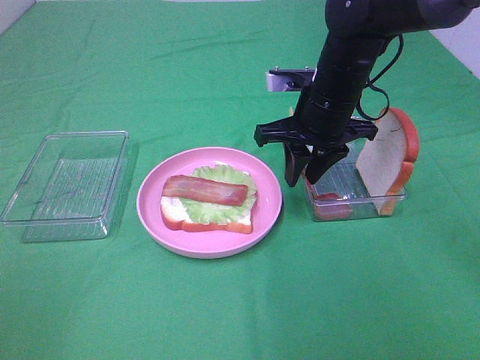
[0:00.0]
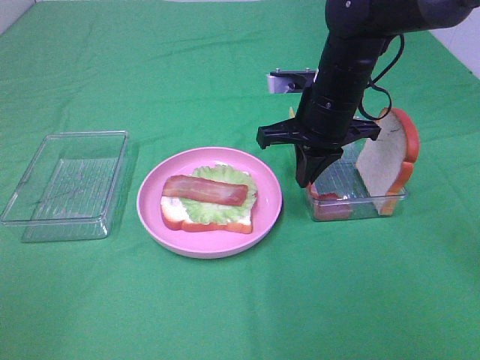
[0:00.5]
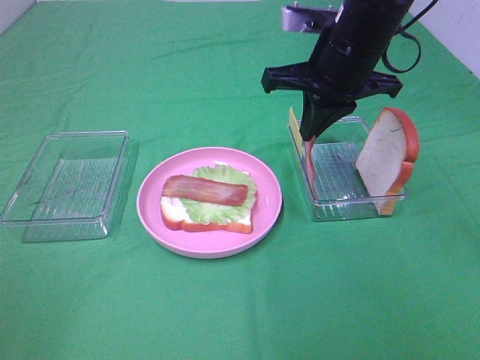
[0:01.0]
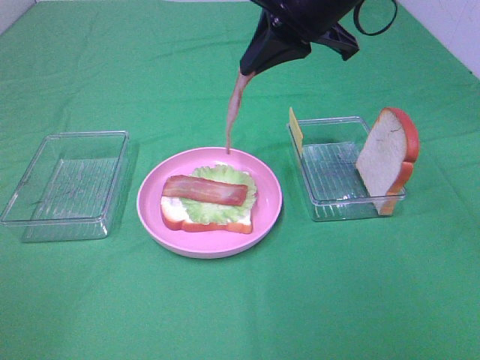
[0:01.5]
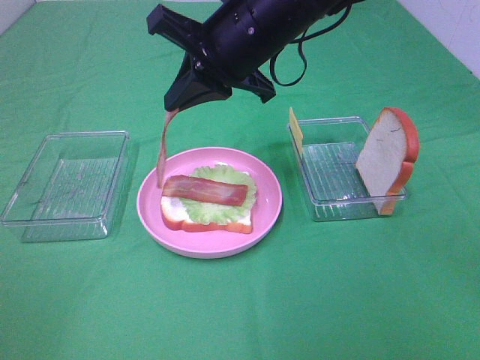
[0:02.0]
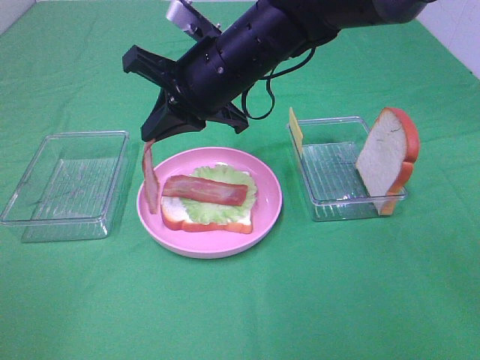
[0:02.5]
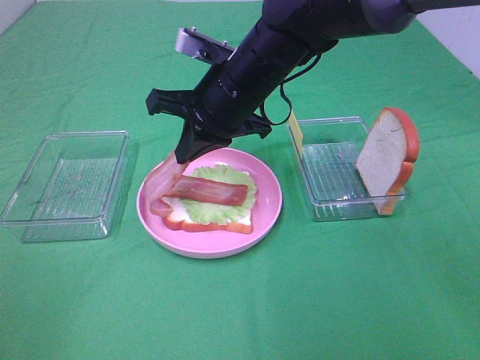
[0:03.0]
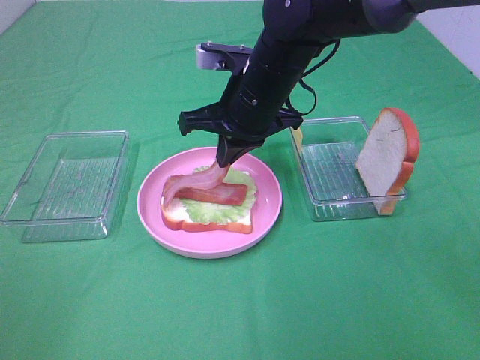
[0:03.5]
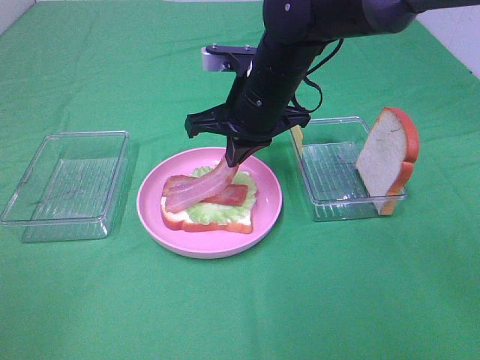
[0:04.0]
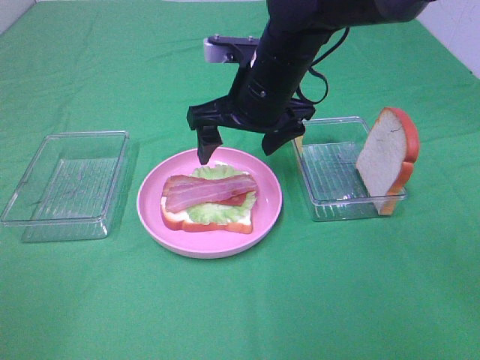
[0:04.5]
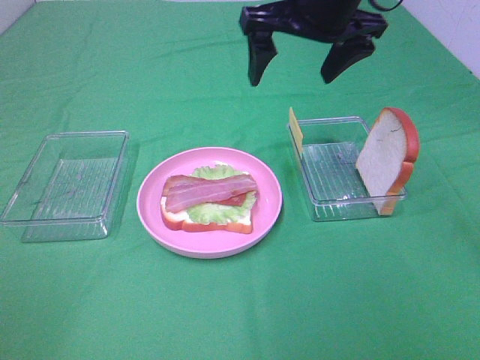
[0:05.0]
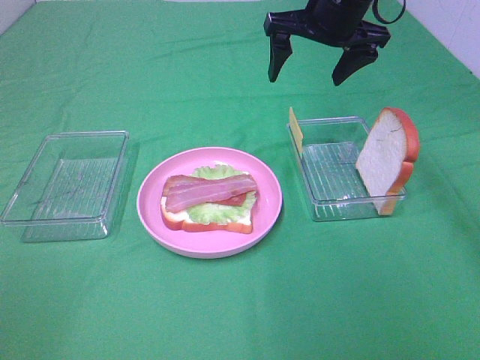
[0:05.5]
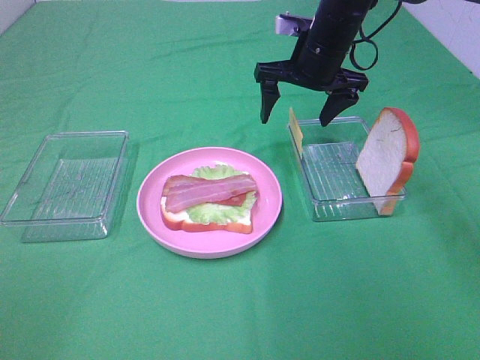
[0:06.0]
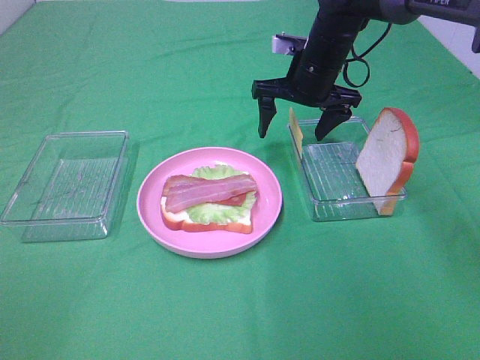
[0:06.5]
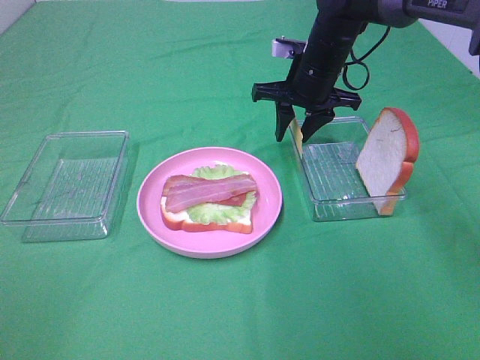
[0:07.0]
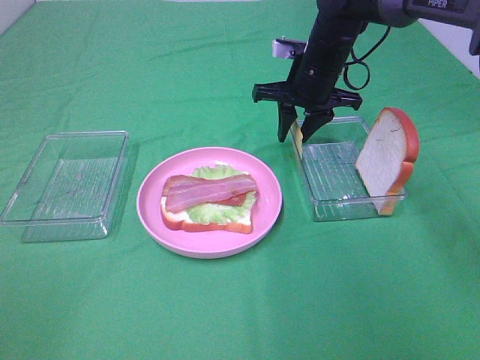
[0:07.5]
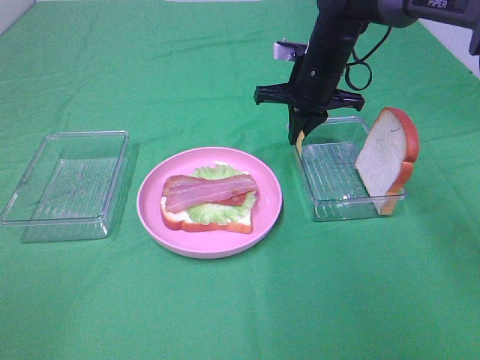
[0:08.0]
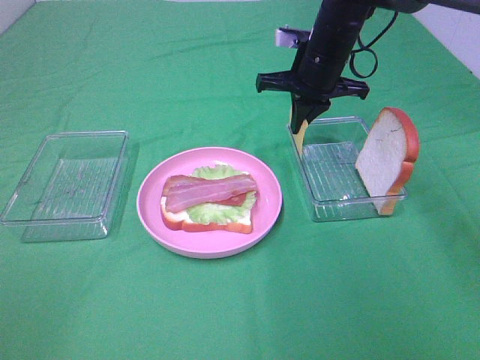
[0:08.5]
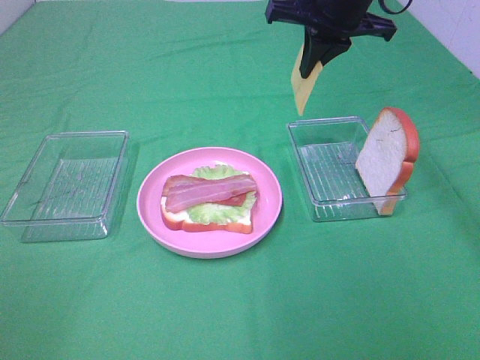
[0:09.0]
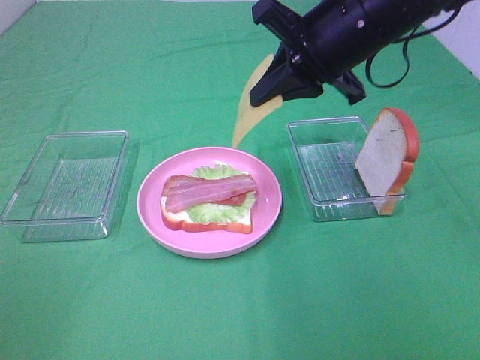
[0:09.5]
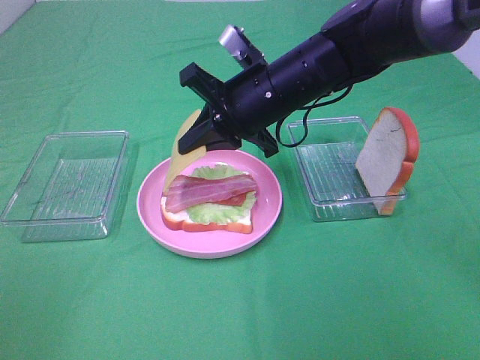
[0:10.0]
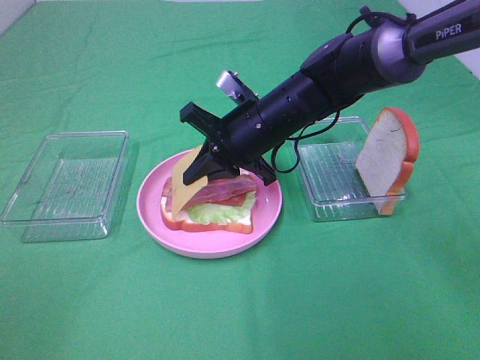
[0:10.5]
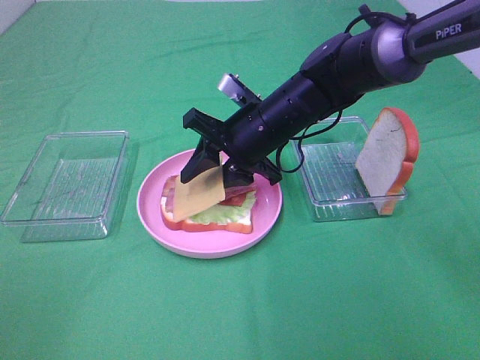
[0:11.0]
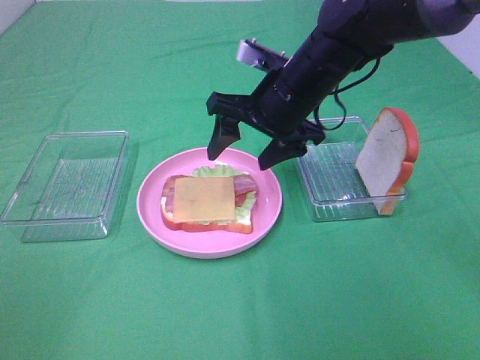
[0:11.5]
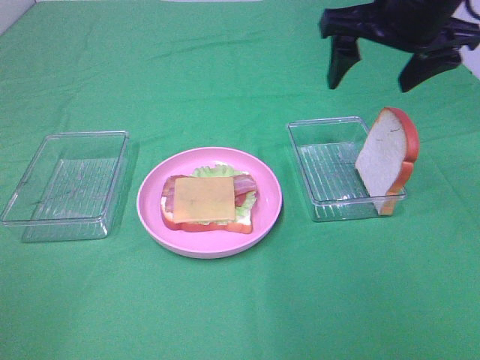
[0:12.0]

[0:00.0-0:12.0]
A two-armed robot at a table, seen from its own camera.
Task of the whole recording: Make sandwiches.
Step, 0:01.0 to 0:04.0: Right hand:place bacon on bacon.
Step, 0:04.5 to 0:08.0: Right hand:grab the cheese slice.
Step, 0:08.5 to 0:11.0: Right hand:place the cheese slice on top of the bacon.
0:00.0 to 0:02.0: The right gripper goes roughly 10 cm to the left and upward.
0:02.0 to 0:04.0: The right gripper travels downward by about 5 cm.
0:04.0 to 0:06.0: The right gripper travels forward and to the right by about 15 cm, moves roughly 10 cm upward and comes back, and opens up.
0:06.0 to 0:08.0: The right gripper closes.
0:08.0 to 0:10.0: The right gripper shifts about 15 cm backward and to the left.
0:10.0 to 0:12.0: The right gripper moves to the right and upward, approximately 20 cm, and opens up.

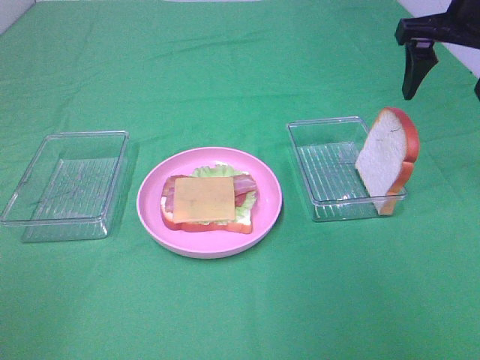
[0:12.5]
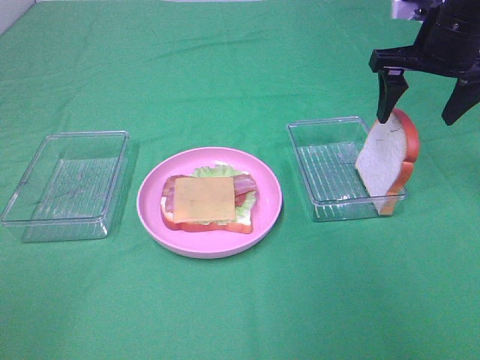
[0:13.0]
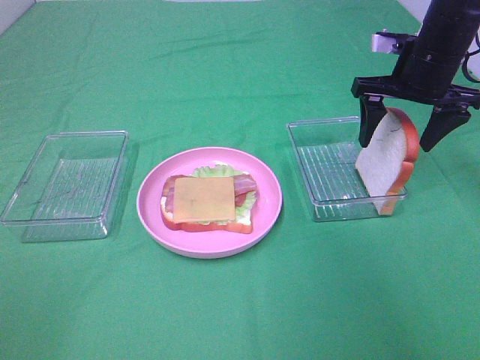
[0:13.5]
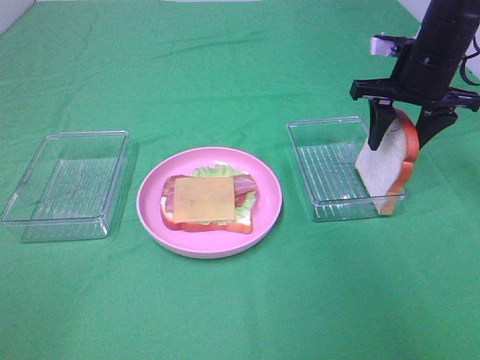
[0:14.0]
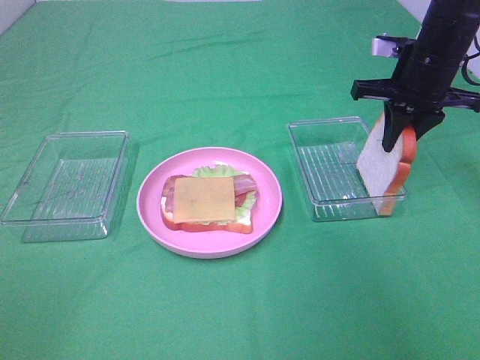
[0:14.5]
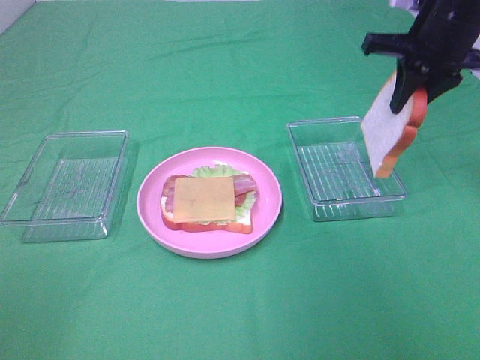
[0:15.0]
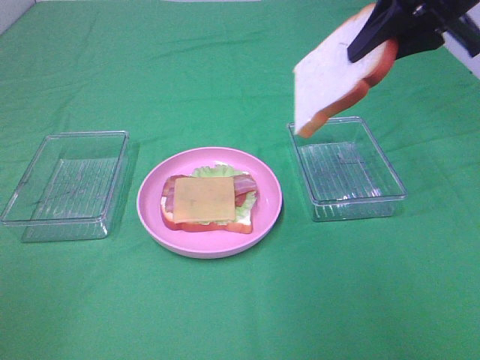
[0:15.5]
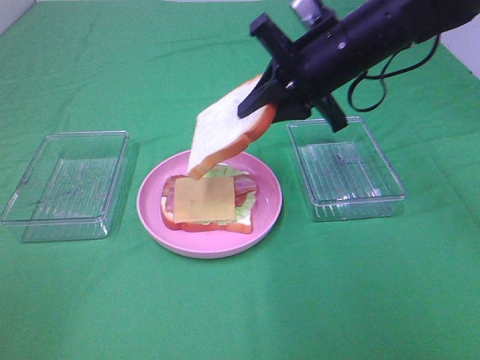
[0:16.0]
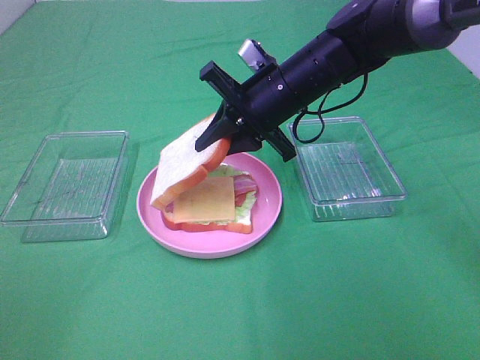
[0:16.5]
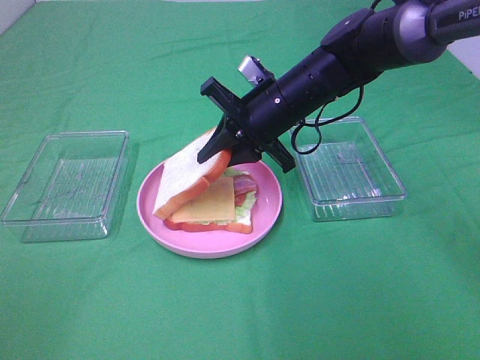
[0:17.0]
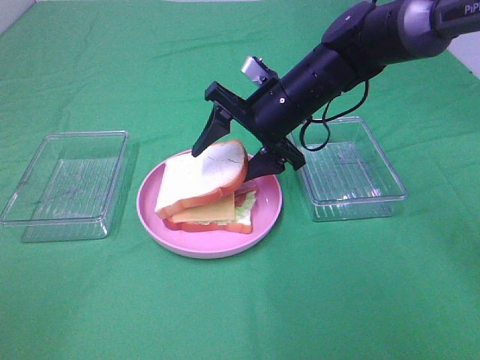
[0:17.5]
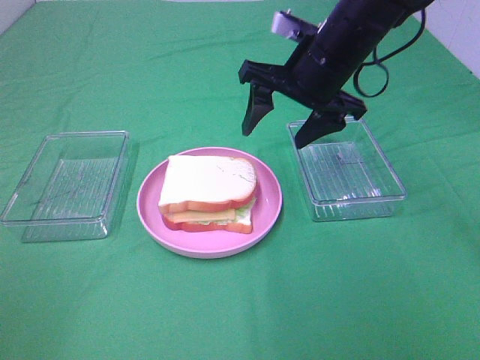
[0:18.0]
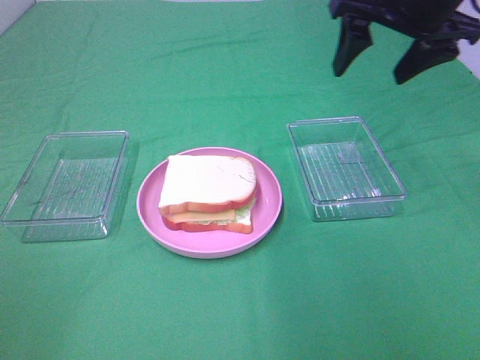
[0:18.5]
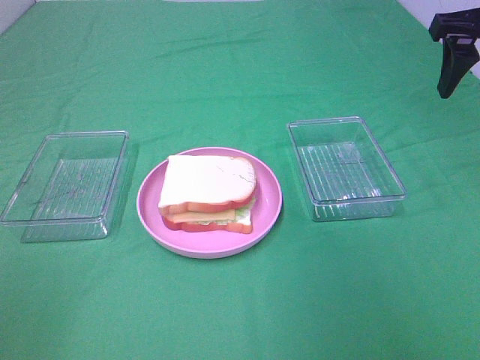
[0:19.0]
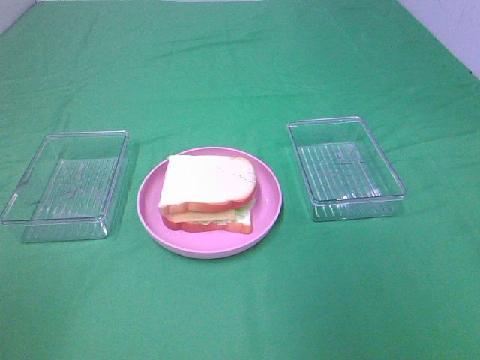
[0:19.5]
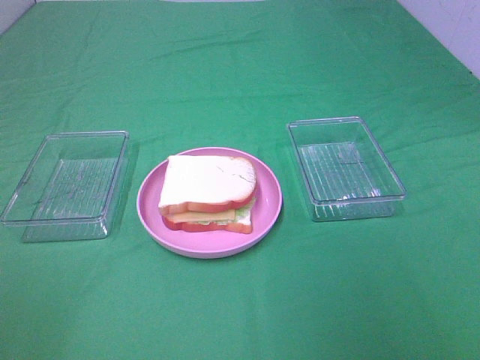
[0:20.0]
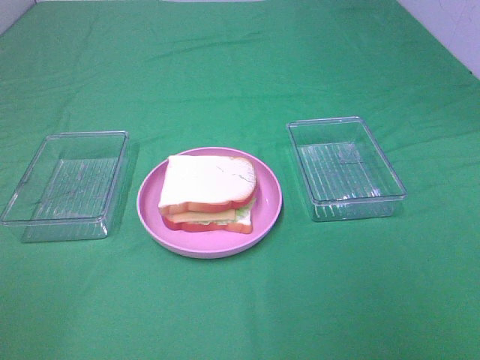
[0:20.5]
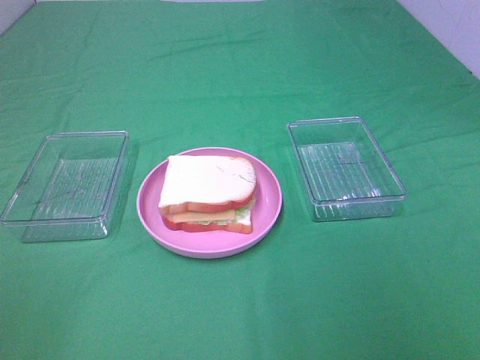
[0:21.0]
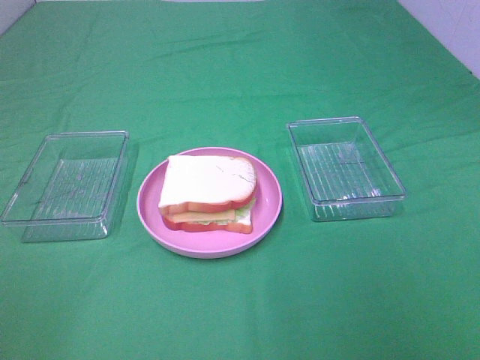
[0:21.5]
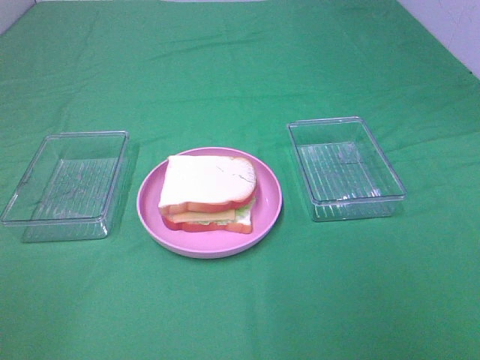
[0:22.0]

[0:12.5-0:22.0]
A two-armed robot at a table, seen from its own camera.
Task of the whole recording: Make sandwiches.
Step, 0:12.5 to 0:14.5: Right hand:grab the bread slice.
Step, 0:15.0 to 0:17.5: Right hand:place the bread slice on the cheese slice.
0:12.5 to 0:14.5: The right gripper moves downward, roughly 10 cm, and closes up.
0:14.5 to 0:16.5: The right gripper moves to the left, roughly 15 cm.
0:16.5 to 0:18.0: The right gripper goes about 5 cm upward, and opens up.
0:18.0 to 0:20.0: The right gripper heads backward and to the right, covering about 40 cm.

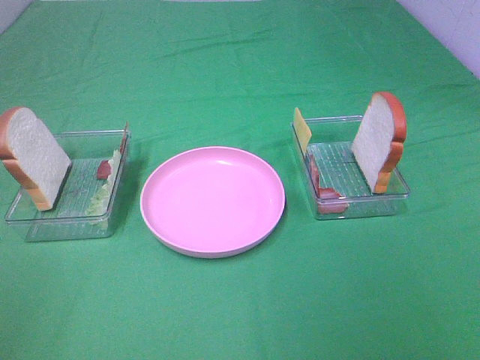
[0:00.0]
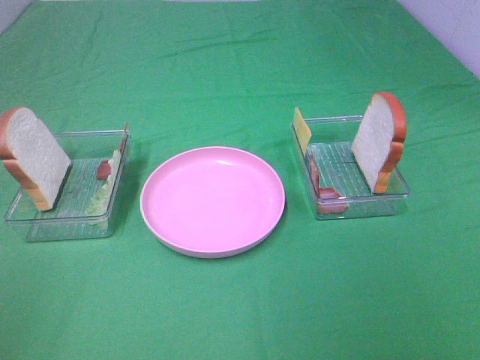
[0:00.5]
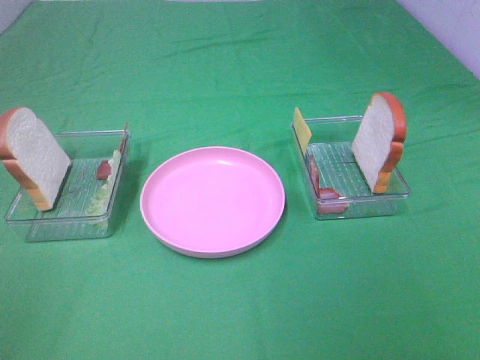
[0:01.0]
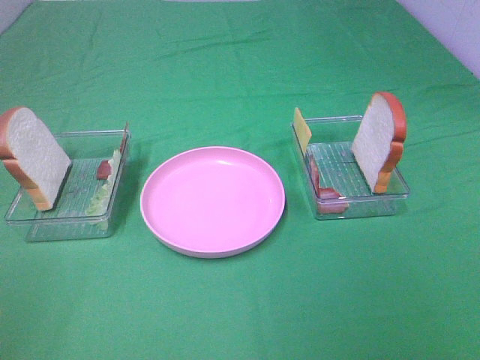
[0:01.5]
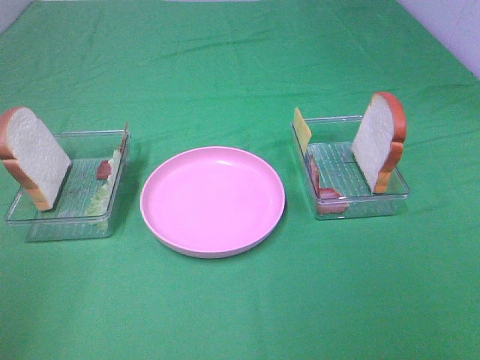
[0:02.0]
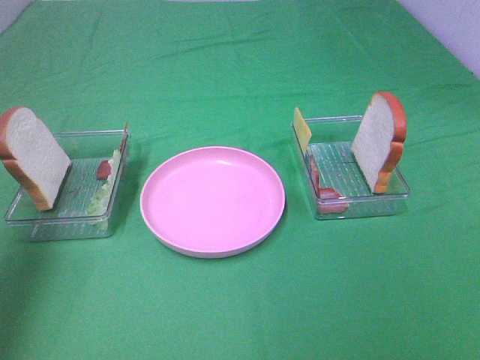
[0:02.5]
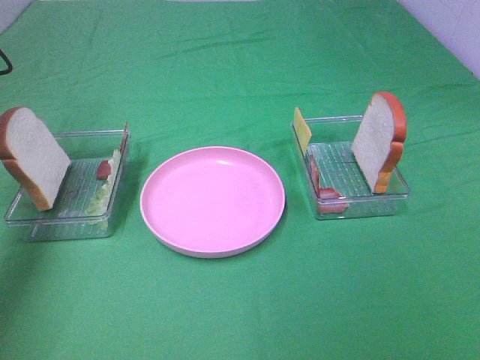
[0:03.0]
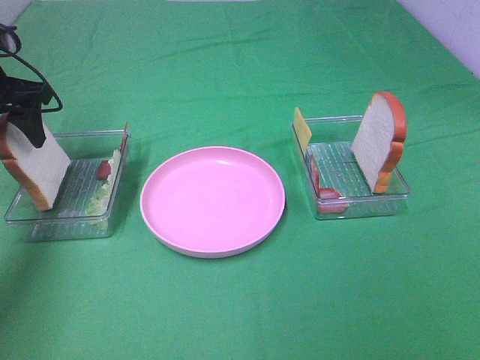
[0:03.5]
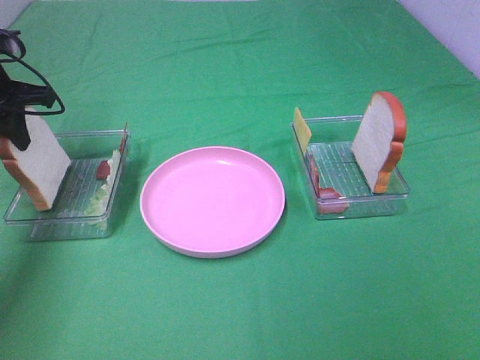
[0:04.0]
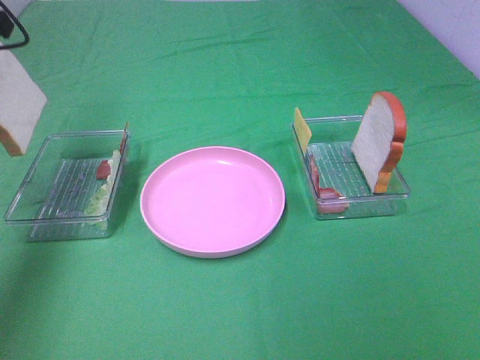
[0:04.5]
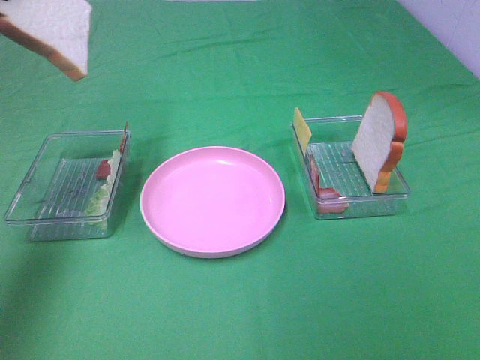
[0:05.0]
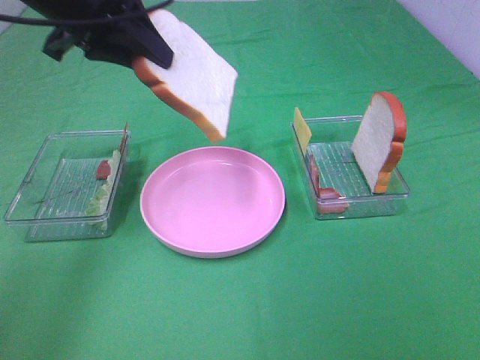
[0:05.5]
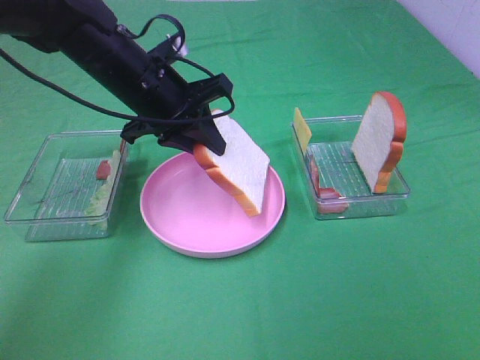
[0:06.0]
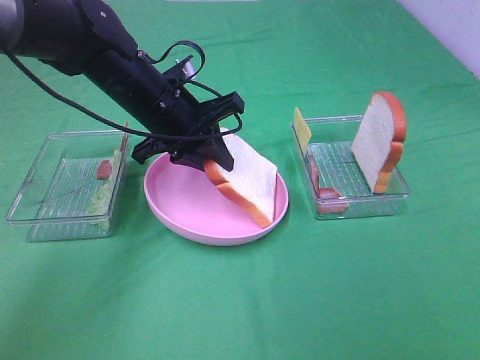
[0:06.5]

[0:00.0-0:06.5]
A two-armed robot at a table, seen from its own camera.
Task of the whole recording: Make sandwiches.
Step, 0:00.0 to 0:03.5: Left hand:grab the bread slice.
0:02.0 to 0:04.5: The left gripper moves forward, some 30 cm, and closes up.
0:04.5 to 0:06.5: The left gripper is displaced to the right and downward by approximately 25 cm.
